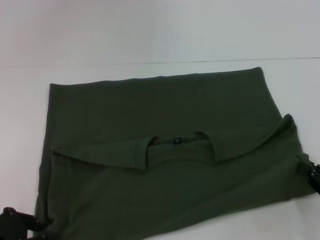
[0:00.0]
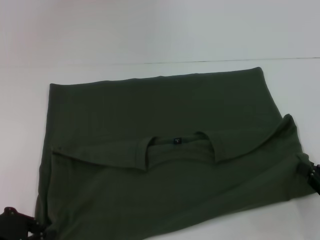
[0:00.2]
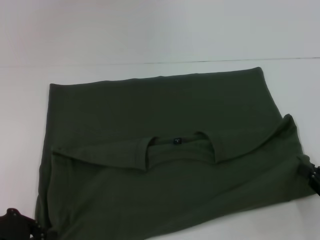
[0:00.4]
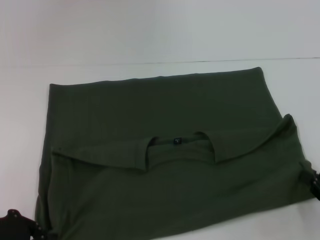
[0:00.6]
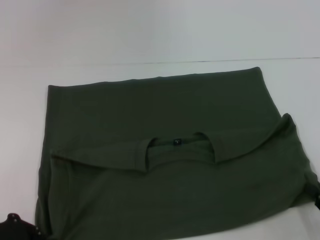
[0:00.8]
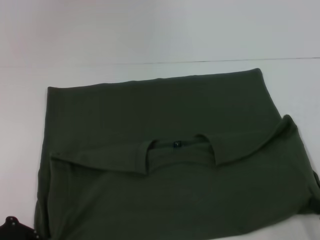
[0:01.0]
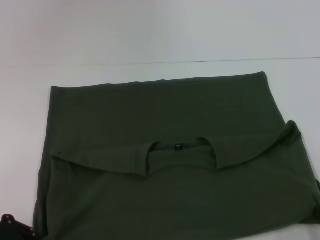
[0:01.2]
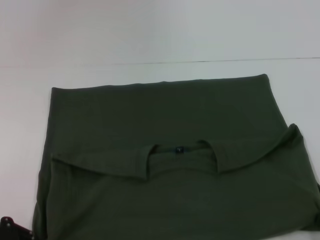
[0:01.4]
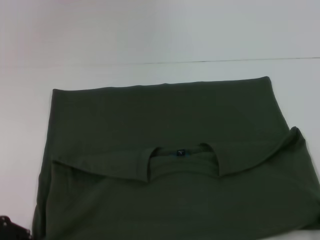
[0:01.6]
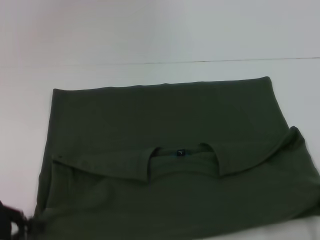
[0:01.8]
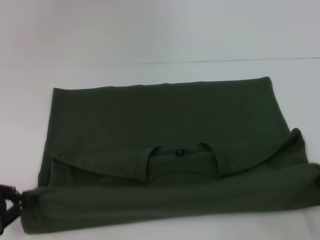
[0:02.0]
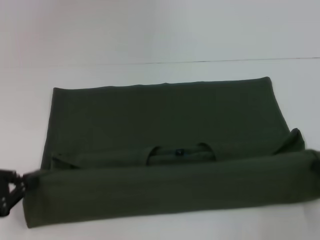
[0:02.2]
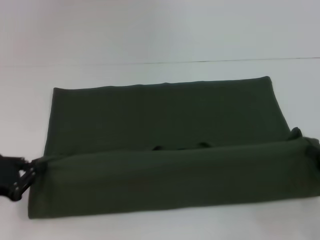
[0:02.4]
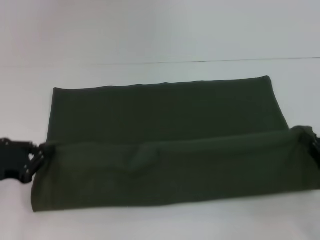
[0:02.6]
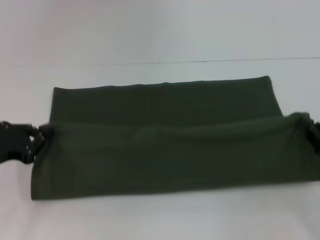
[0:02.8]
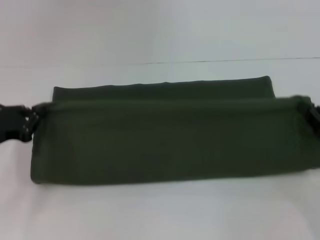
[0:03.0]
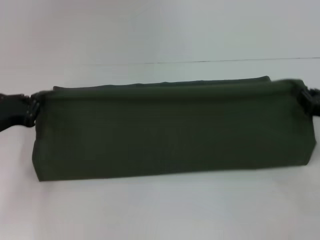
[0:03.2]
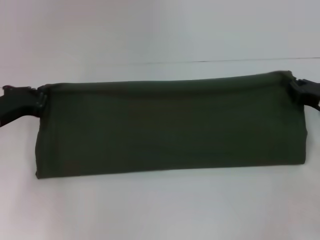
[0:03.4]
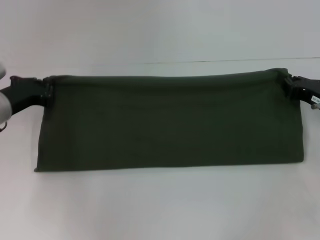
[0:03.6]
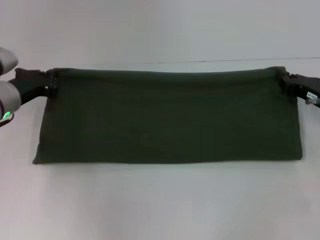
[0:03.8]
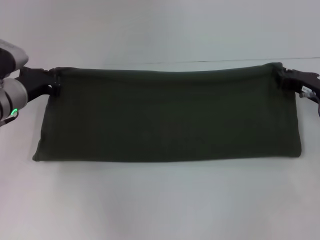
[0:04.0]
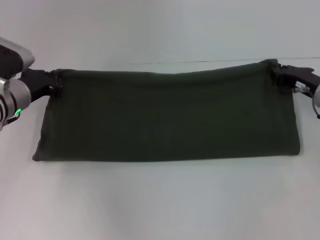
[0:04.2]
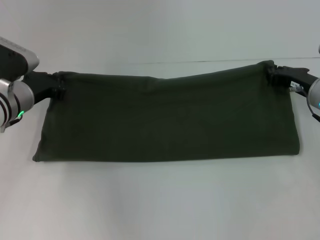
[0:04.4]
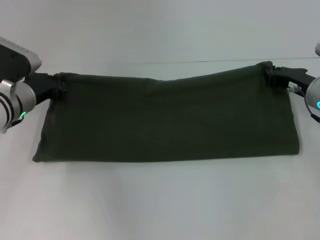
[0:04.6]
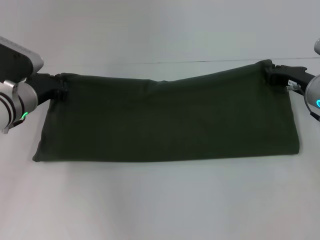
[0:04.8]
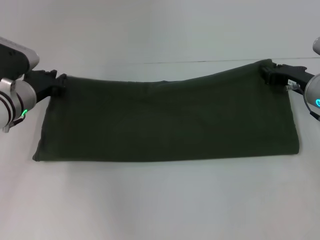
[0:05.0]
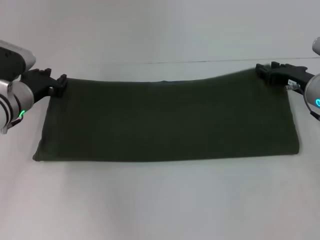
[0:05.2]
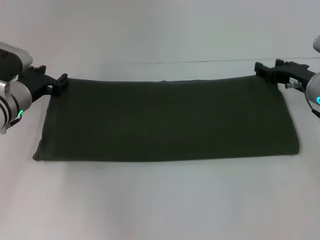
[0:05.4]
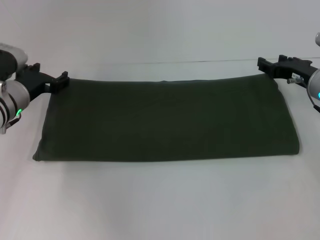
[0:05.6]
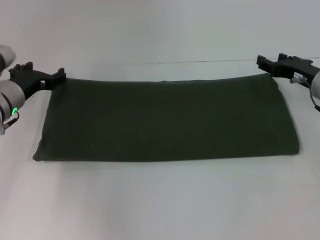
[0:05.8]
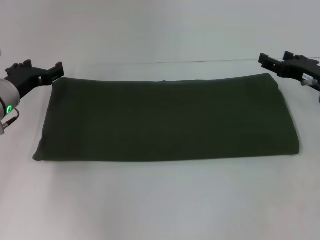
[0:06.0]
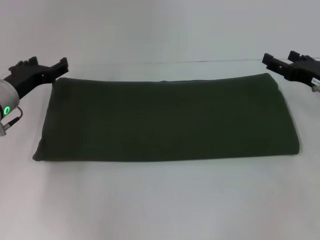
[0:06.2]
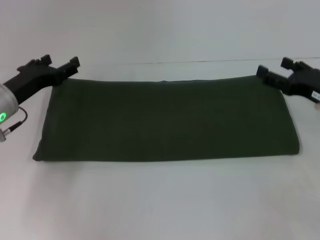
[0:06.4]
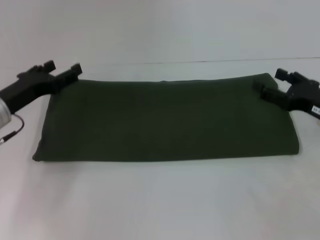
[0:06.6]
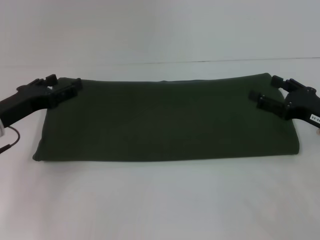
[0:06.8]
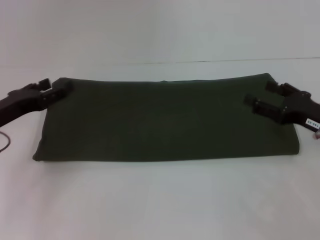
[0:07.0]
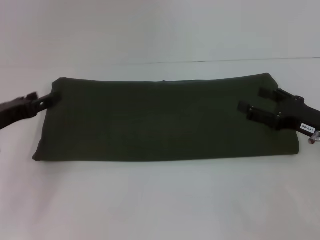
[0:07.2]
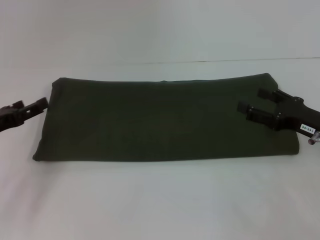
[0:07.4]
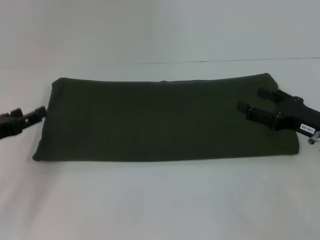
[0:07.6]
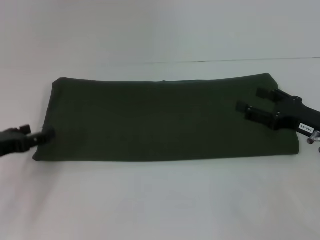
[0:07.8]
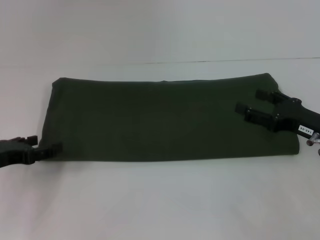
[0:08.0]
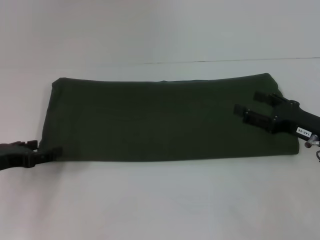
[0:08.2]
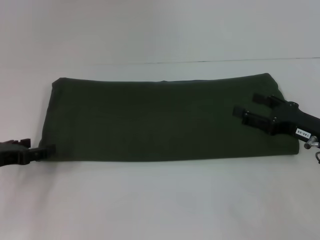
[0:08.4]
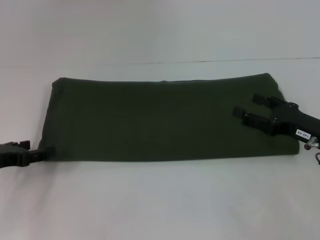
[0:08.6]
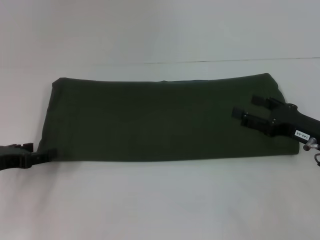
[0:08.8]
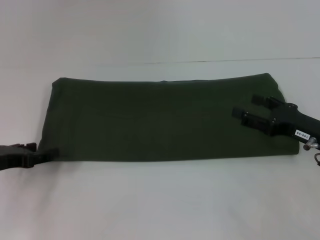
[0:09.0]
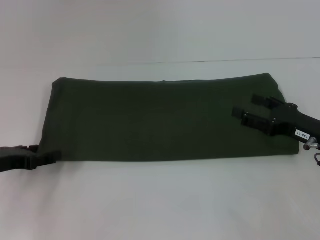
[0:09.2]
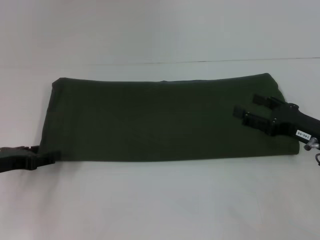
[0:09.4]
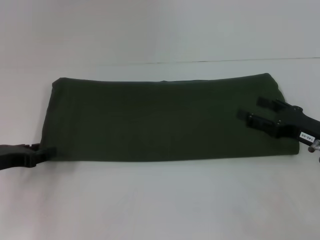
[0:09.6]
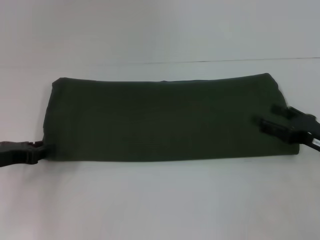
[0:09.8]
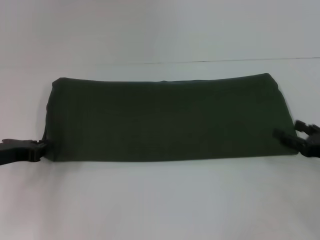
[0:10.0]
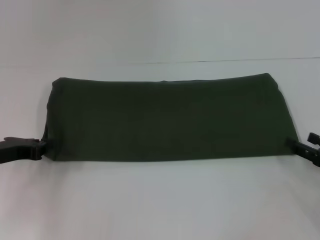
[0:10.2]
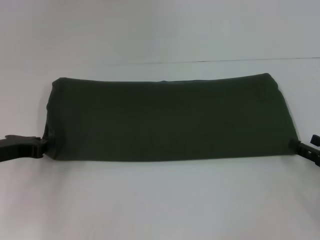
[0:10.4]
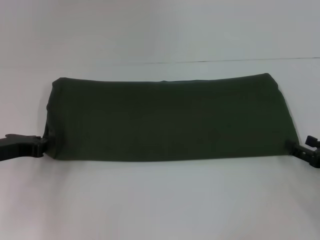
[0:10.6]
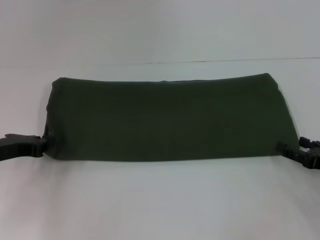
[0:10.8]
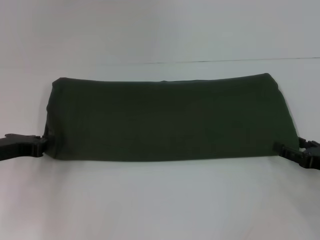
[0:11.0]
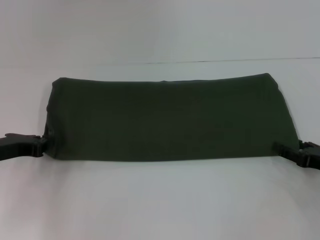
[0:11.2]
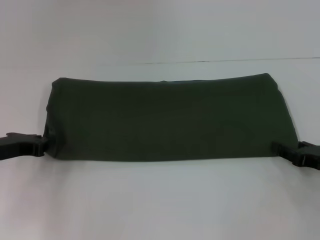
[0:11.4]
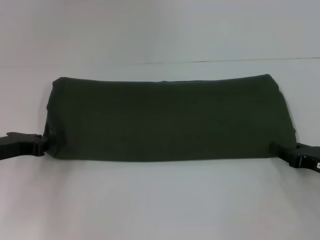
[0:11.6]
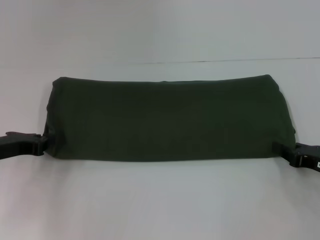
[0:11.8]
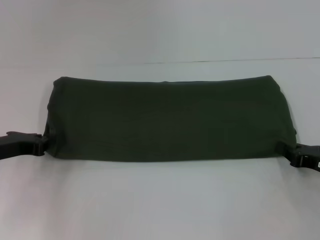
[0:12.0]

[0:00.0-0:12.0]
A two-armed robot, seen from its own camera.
Step, 0:00.0 to 0:05.4: Fold the clothes with your left hand.
Step, 0:00.0 to 0:05.4: Fold the clothes with your right hand.
0:00.0 to 0:01.6: The right gripper moves backward, approximately 10 cm. The left gripper closes its fingers.
0:01.6 to 0:03.0: The right gripper moves forward, some 15 cm, while the left gripper is displaced forward by approximately 10 cm.
0:03.0 to 0:04.4: The left gripper goes approximately 15 cm forward and to the right; the right gripper is displaced forward and to the left by approximately 15 cm.
0:04.4 to 0:06.0: The left gripper opens its fingers. The right gripper opens its fingers.
0:06.0 to 0:07.6: The left gripper heads backward and to the left, covering about 10 cm. The right gripper moves backward, roughly 10 cm.
0:09.0 to 0:10.4: The right gripper shifts roughly 10 cm to the right and backward. The left gripper closes up.
0:10.4 to 0:12.0: The right gripper closes its fingers.

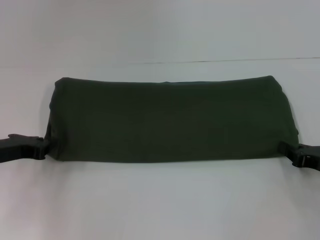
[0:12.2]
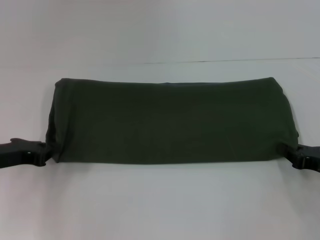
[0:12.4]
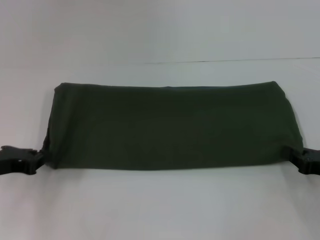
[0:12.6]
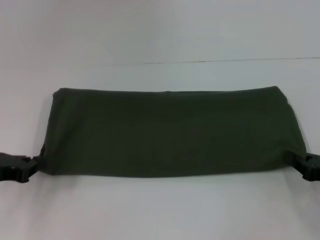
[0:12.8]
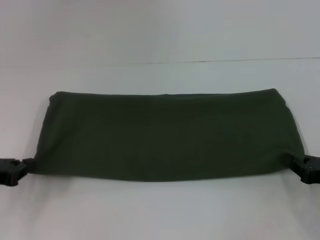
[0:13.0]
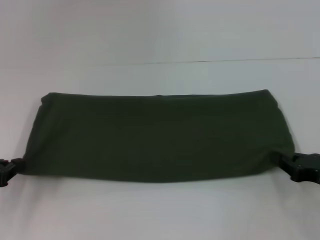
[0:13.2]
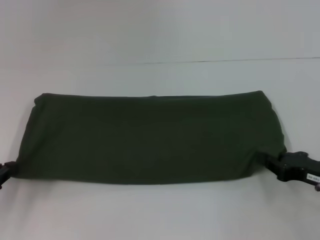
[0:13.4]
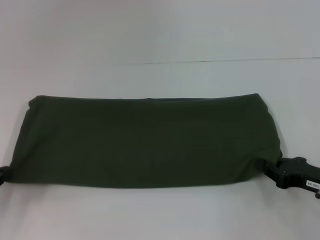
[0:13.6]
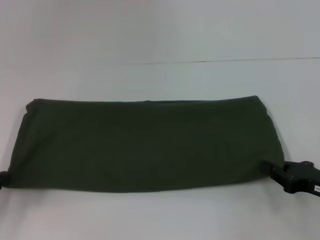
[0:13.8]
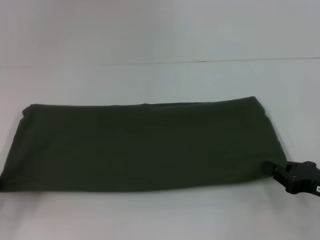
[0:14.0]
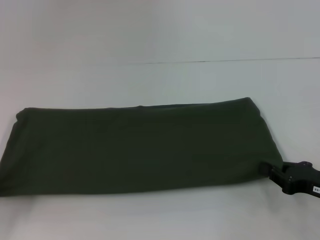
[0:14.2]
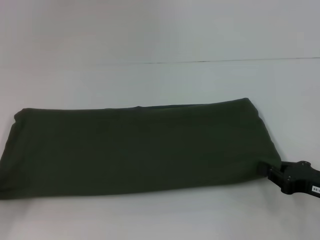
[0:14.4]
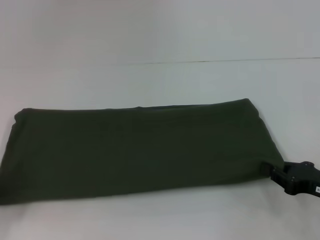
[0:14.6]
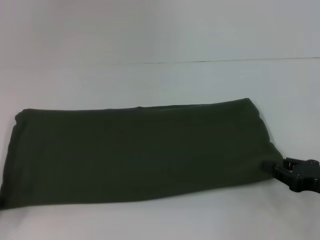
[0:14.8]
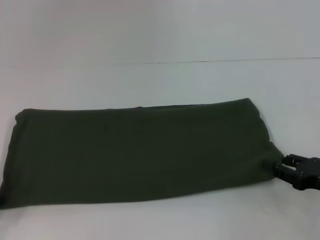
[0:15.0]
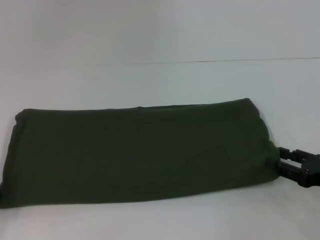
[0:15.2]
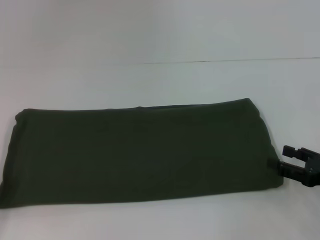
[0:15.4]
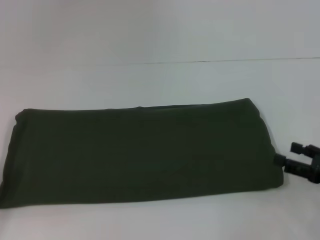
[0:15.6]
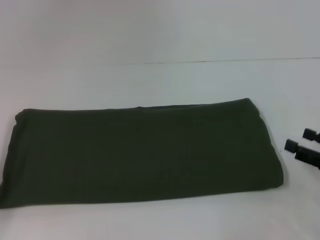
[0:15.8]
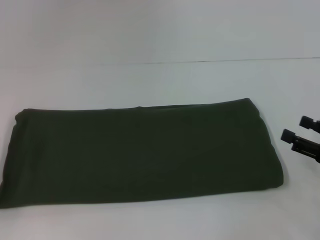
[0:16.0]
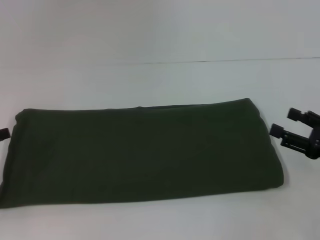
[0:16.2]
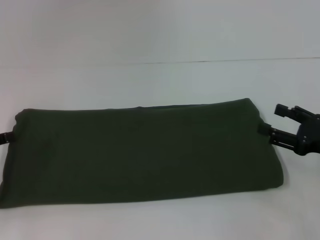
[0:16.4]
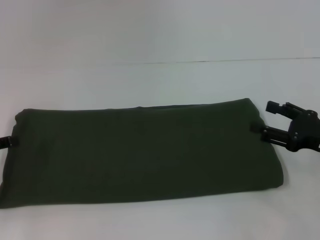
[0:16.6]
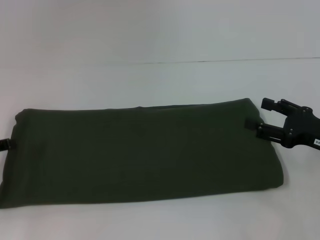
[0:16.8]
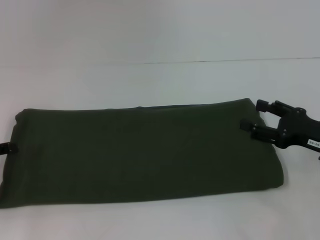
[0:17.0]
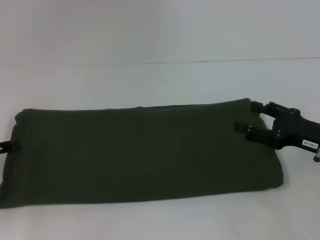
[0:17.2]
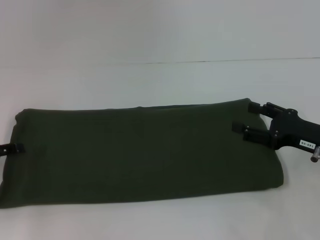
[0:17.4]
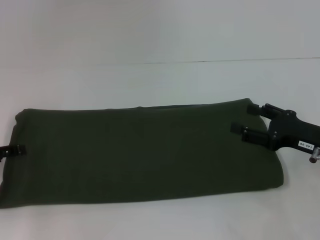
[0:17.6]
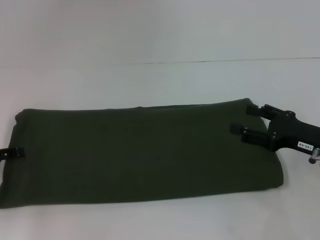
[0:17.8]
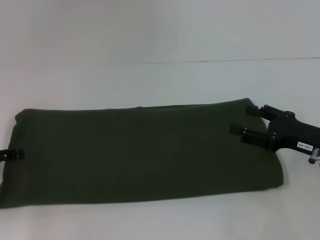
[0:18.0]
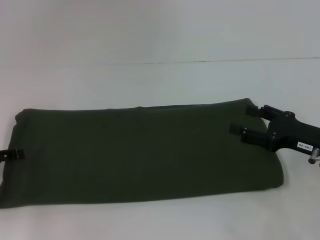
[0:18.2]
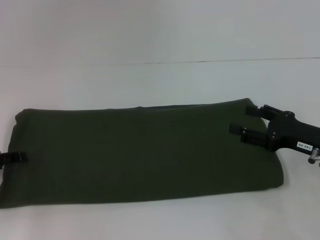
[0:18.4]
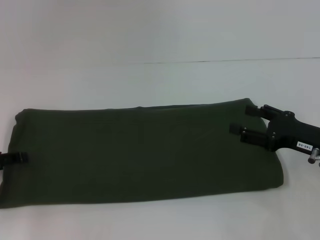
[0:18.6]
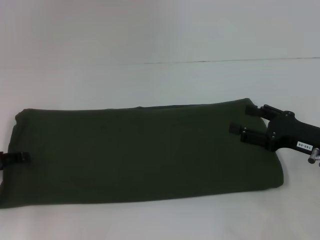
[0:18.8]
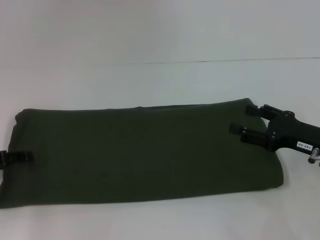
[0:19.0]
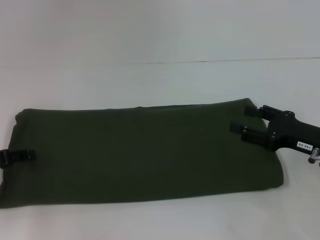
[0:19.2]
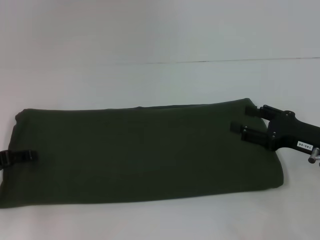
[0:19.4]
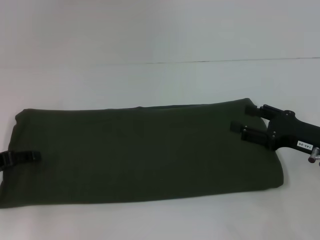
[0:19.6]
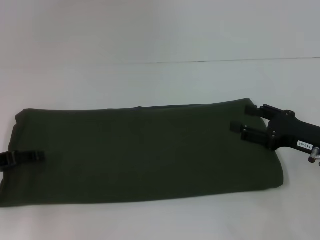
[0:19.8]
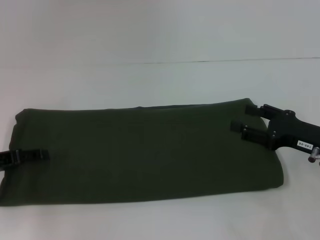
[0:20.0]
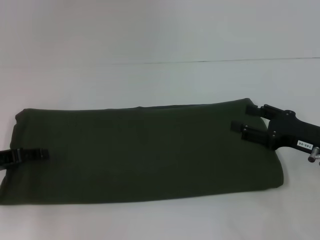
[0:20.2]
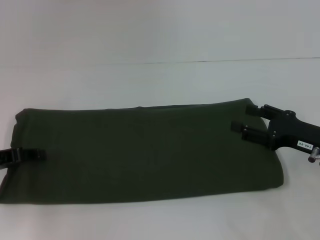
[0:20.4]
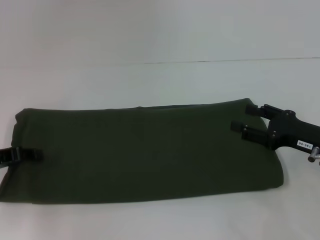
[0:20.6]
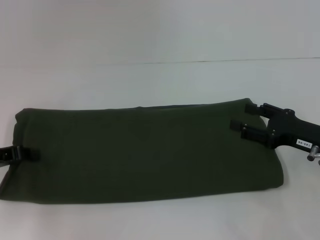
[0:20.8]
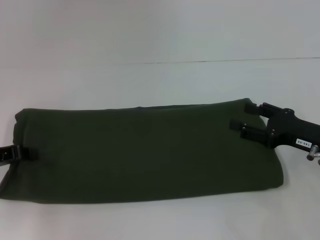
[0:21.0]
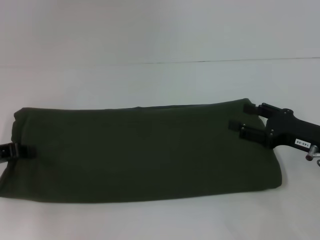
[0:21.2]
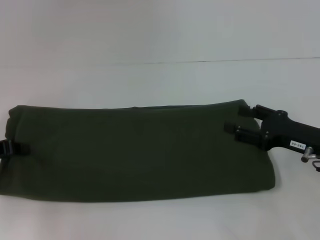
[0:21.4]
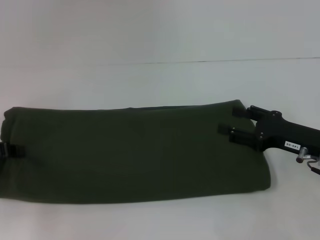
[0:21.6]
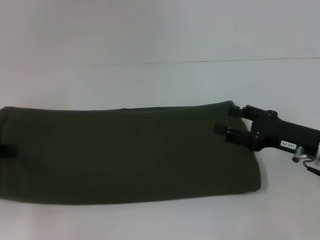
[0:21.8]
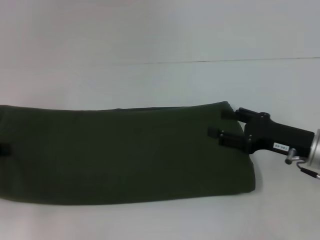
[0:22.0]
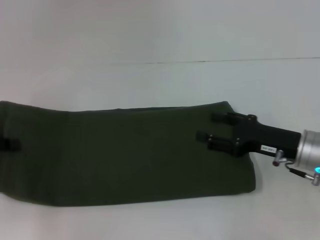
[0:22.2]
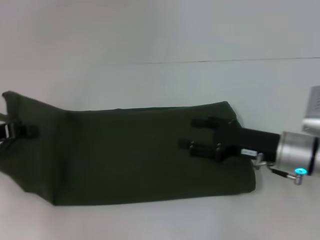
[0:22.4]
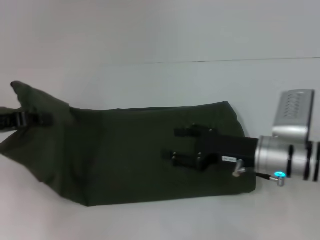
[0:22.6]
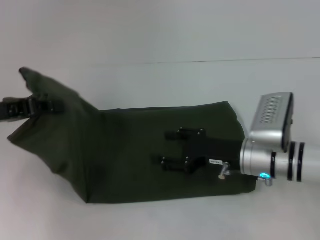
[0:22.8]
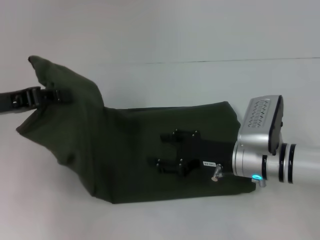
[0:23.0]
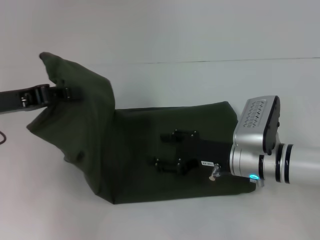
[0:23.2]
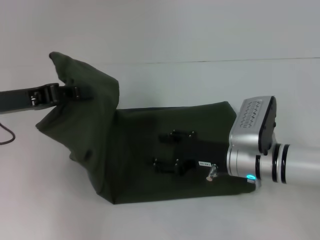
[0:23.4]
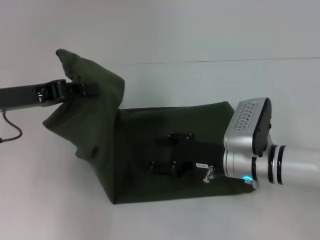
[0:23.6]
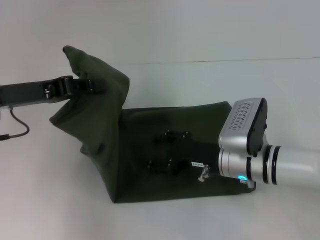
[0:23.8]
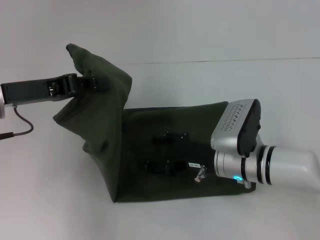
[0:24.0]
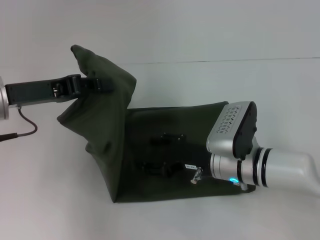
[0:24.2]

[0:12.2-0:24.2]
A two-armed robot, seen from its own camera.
Step, 0:12.2 to 0:15.4: Pull the clothes with your left hand.
Step, 0:12.2 to 0:15.4: Pull the clothes with your right hand.
0:12.2 to 0:13.8: The left gripper moves backward and to the left, approximately 10 cm.
0:13.8 to 0:15.2: The left gripper opens. The right gripper opens its fingers.
0:15.2 to 0:16.6: The right gripper moves some 5 cm, and opens.
0:16.6 to 0:18.2: The grippers make only small movements.
0:19.8 to 0:21.2: The left gripper closes.
0:21.2 to 0:22.6: The right gripper moves to the left, about 10 cm. Meanwhile the left gripper goes roughly 5 cm upward.
0:22.6 to 0:24.2: The left gripper is displaced to the right by some 5 cm. Meanwhile the right gripper is displaced to the left by approximately 5 cm.
